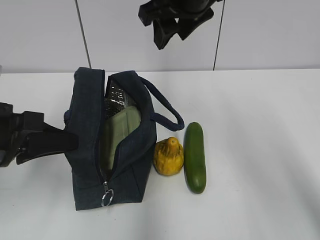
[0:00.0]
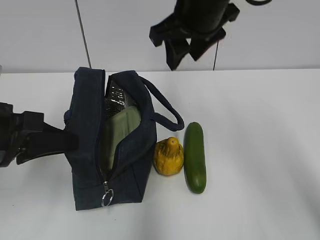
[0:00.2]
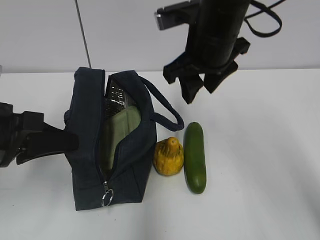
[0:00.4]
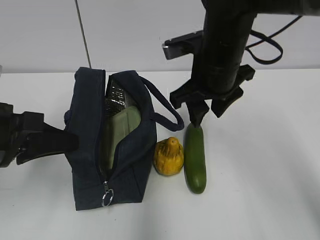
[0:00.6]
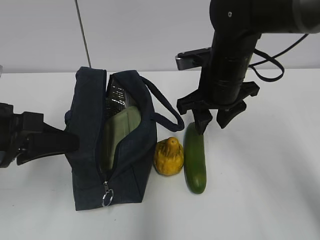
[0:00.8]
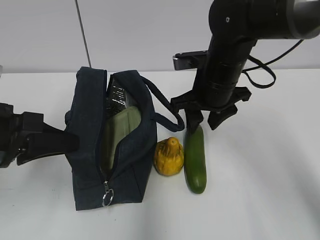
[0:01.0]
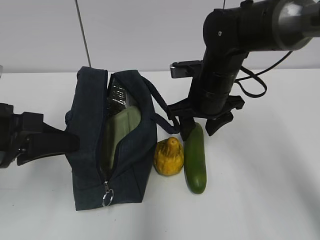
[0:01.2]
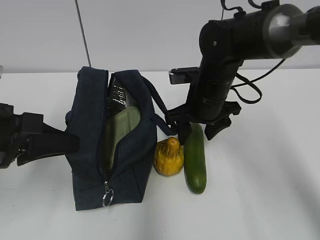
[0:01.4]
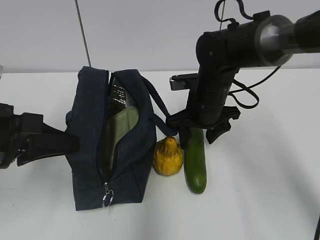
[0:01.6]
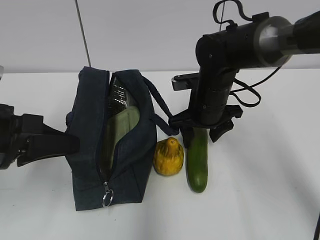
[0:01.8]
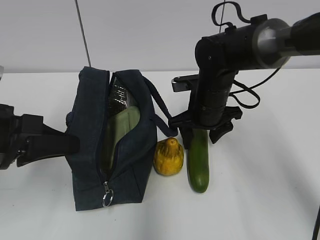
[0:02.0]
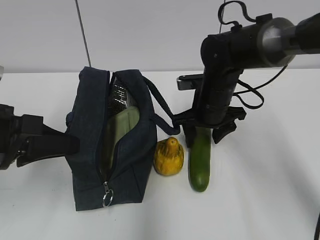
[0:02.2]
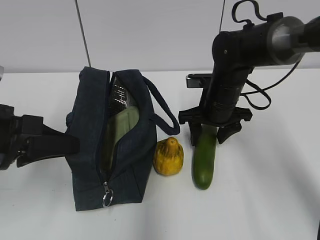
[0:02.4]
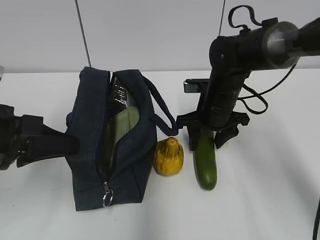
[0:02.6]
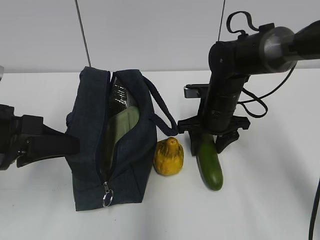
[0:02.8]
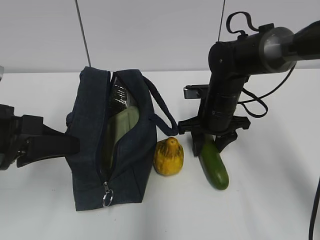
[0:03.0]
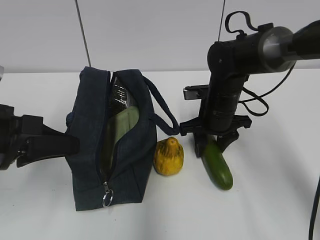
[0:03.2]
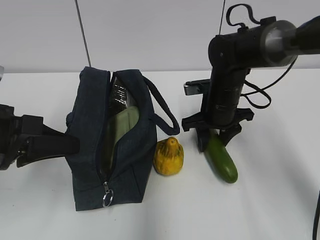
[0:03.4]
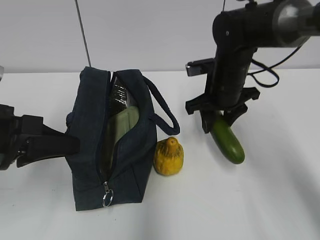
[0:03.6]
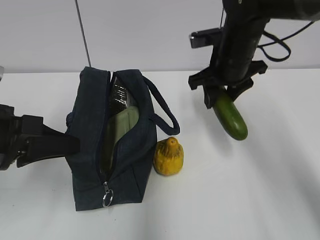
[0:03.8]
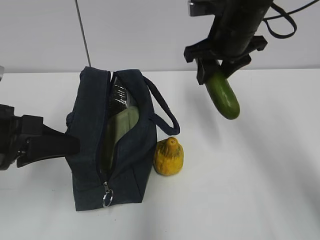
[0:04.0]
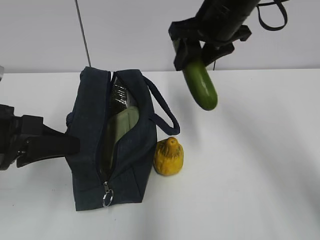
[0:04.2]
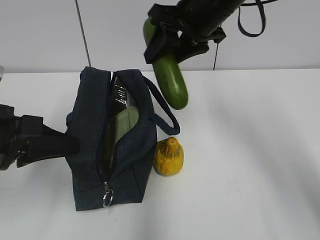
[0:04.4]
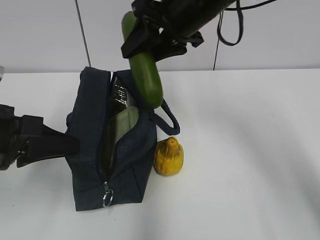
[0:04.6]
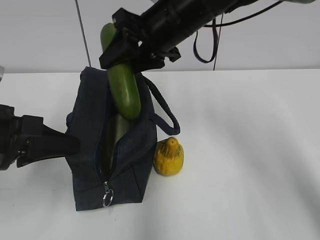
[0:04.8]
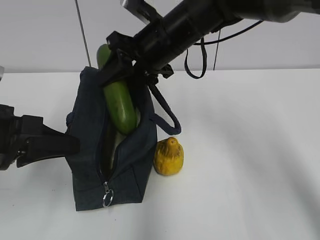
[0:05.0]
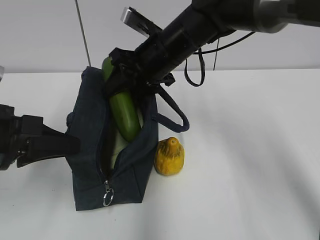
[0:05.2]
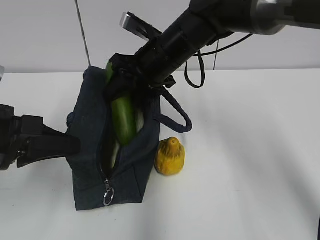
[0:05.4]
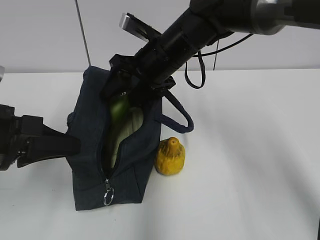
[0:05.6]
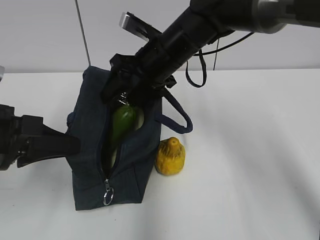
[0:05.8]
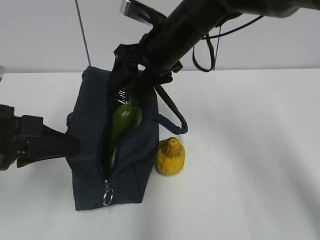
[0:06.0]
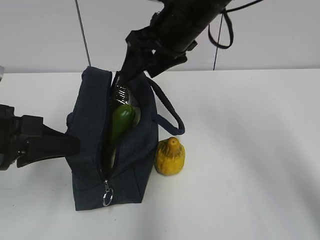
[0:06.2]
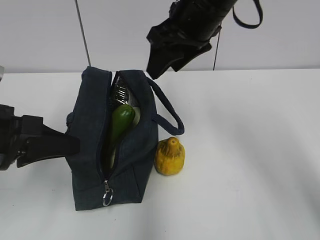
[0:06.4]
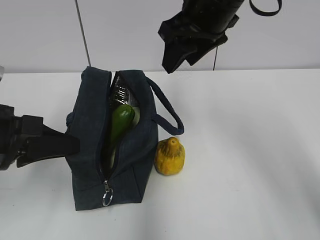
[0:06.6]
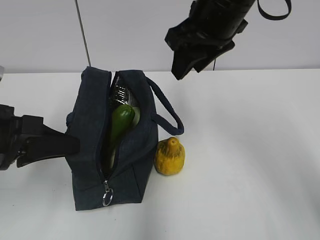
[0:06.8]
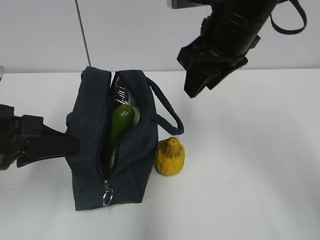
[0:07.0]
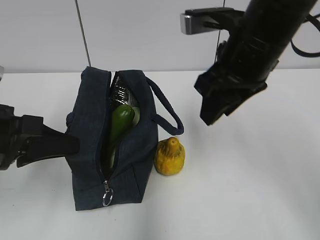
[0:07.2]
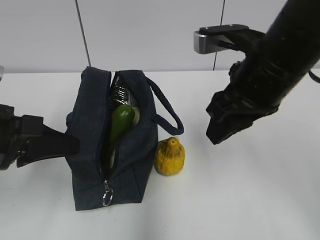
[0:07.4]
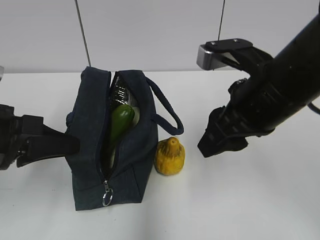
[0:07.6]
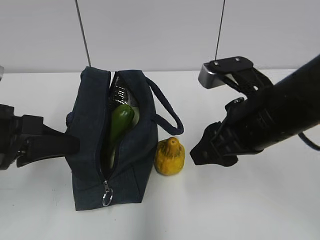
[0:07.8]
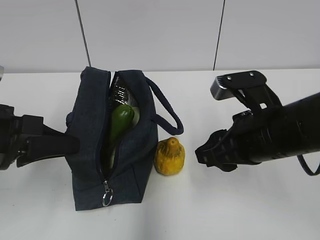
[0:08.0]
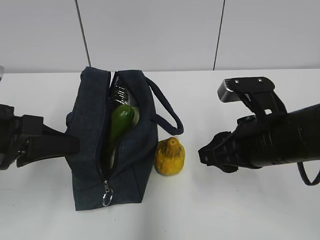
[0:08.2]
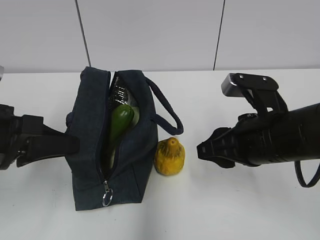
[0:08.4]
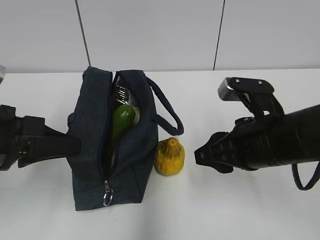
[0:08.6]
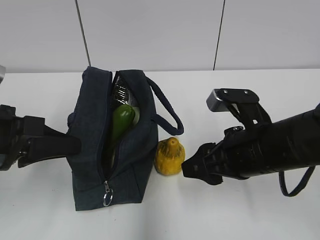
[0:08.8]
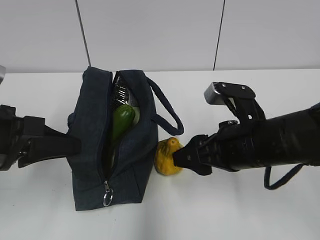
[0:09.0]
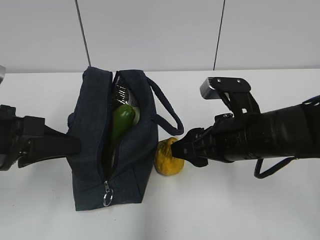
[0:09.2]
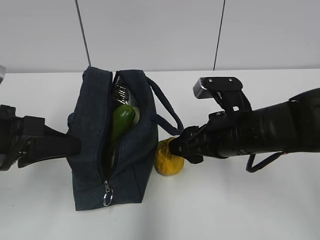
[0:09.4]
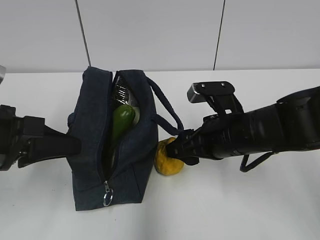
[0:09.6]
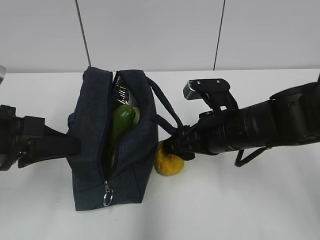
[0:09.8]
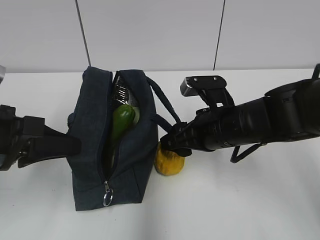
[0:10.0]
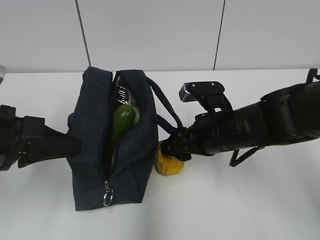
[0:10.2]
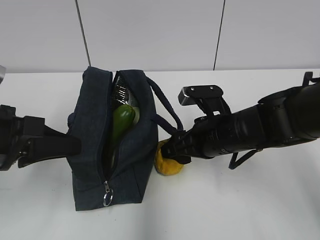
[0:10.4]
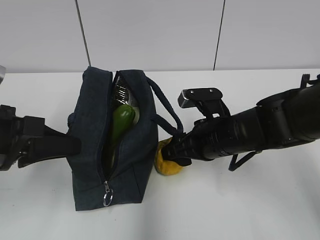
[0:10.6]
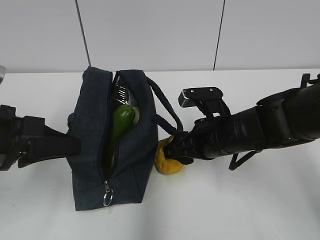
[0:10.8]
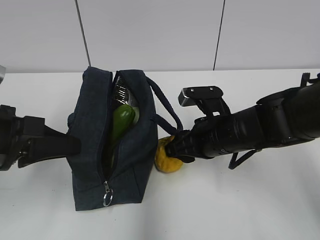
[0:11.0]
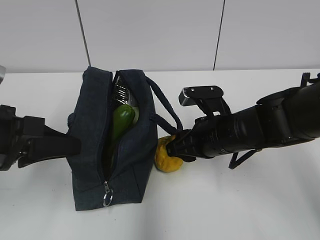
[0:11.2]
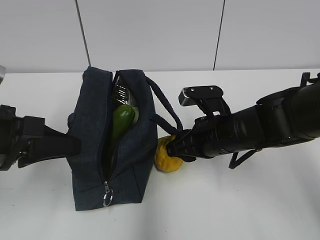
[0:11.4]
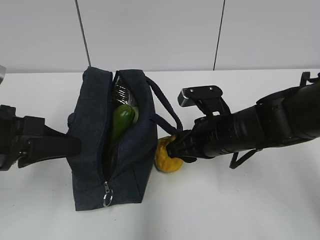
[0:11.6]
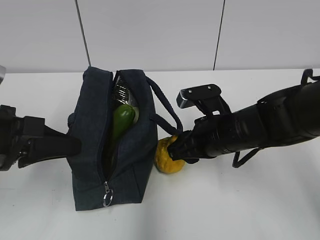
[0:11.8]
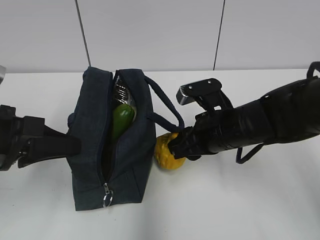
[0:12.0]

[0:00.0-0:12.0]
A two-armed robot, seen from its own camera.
Step, 0:00.0 to 0:03.2: Grab the cucumber with your right hand.
Step, 0:03.4 to 0:05.8: Place it into the bag with your right hand.
0:00.0 to 0:01.6: The right gripper is displaced downward by approximately 20 cm.
0:01.6 to 0:03.0: There are only small adjustments of the grippers.
0:03.0 to 0:04.4: The right gripper shifts about 20 cm upward.
0:04.4 to 0:06.0: The right gripper travels downward and to the left by approximately 10 cm.
0:06.0 to 0:07.6: The right gripper travels backward and to the right by some 15 cm.
0:07.6 to 0:09.0: The right gripper is displaced downward by about 10 cm.
0:09.0 to 0:10.4: The right gripper goes roughly 5 cm forward.
0:10.4 to 0:12.0: The right gripper closes its fingers.

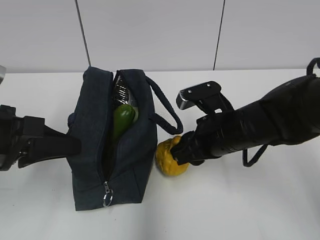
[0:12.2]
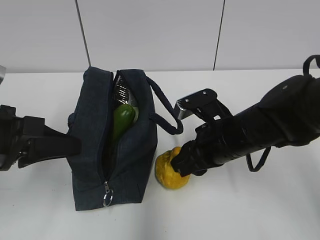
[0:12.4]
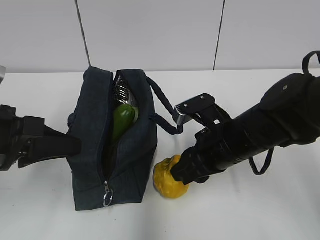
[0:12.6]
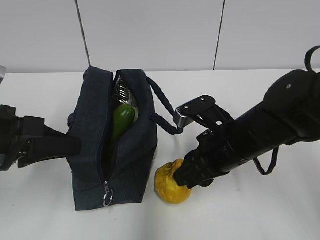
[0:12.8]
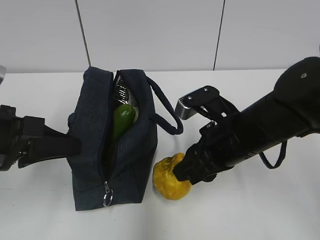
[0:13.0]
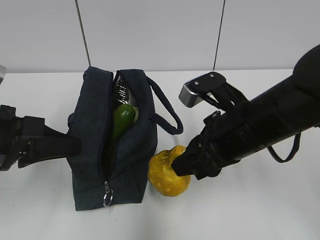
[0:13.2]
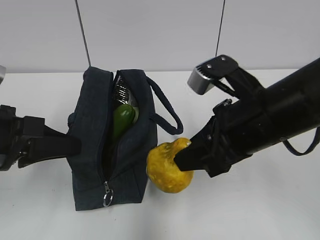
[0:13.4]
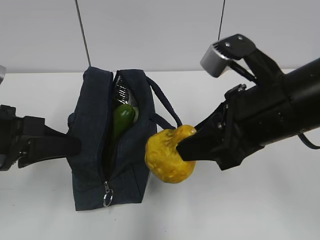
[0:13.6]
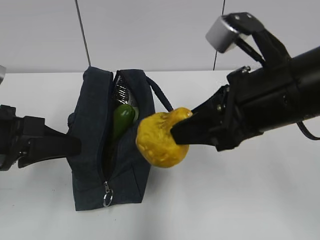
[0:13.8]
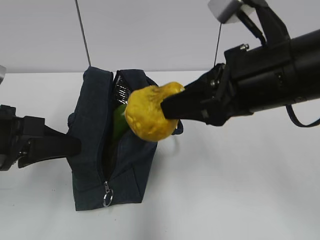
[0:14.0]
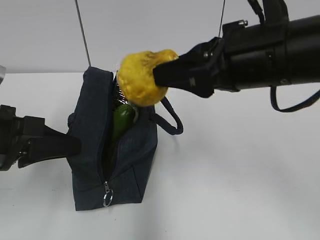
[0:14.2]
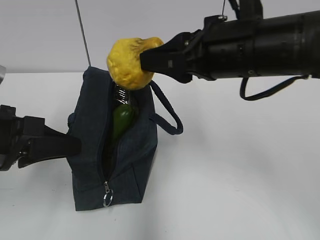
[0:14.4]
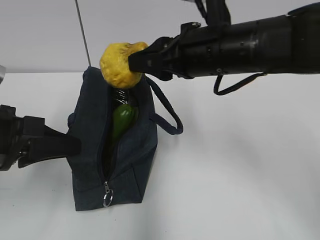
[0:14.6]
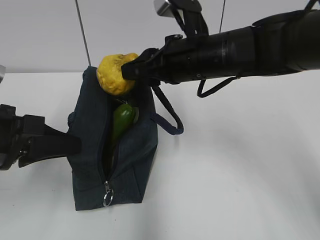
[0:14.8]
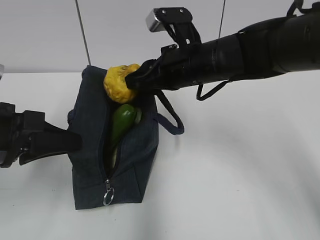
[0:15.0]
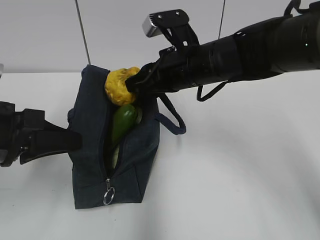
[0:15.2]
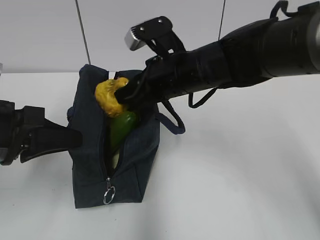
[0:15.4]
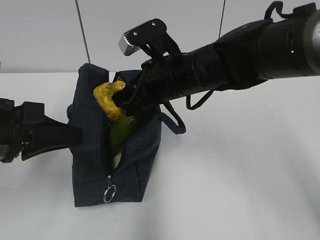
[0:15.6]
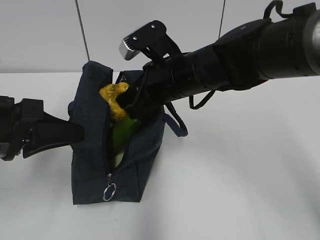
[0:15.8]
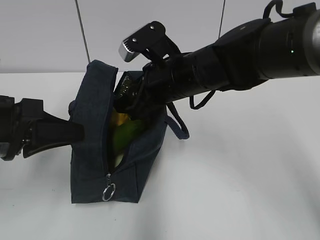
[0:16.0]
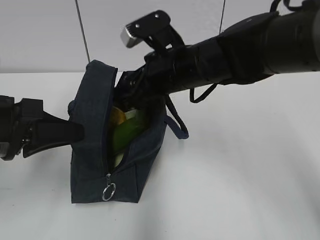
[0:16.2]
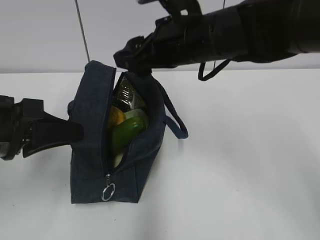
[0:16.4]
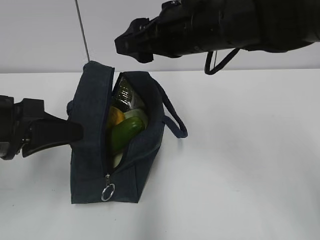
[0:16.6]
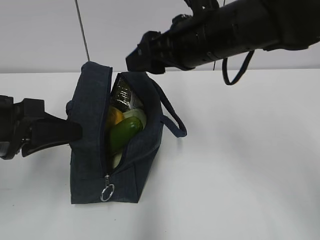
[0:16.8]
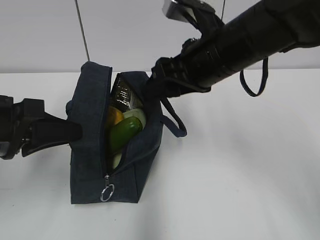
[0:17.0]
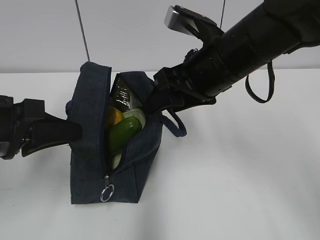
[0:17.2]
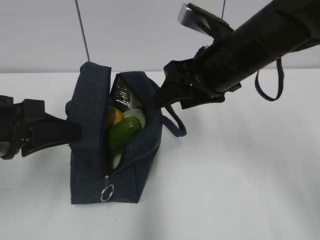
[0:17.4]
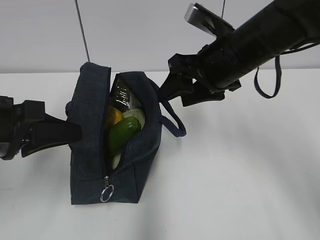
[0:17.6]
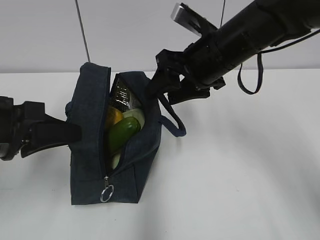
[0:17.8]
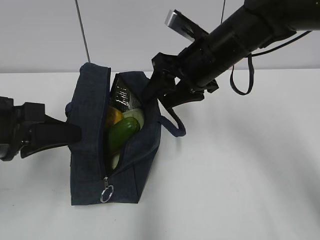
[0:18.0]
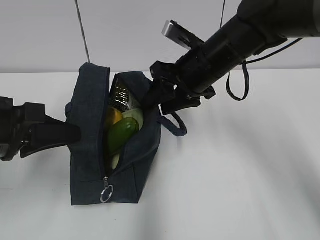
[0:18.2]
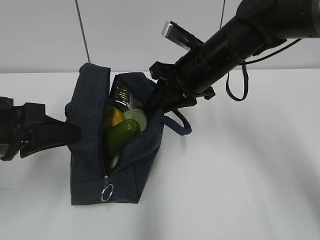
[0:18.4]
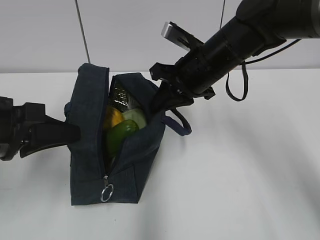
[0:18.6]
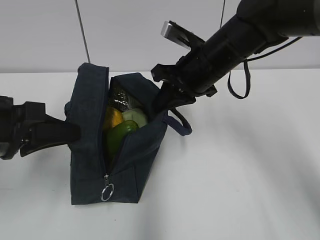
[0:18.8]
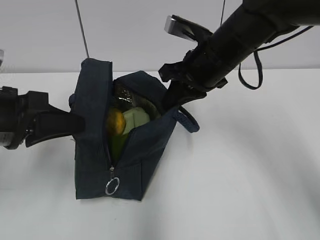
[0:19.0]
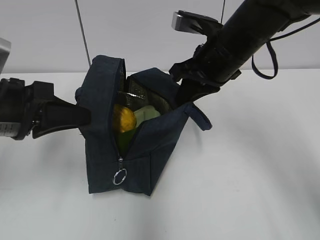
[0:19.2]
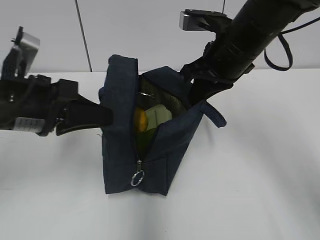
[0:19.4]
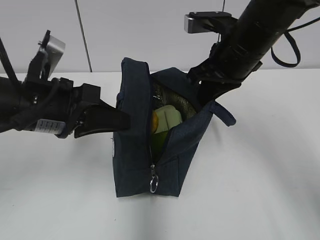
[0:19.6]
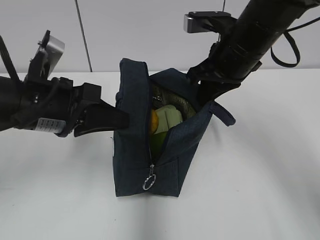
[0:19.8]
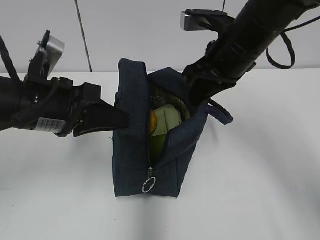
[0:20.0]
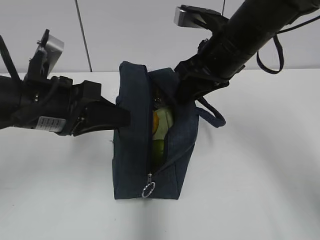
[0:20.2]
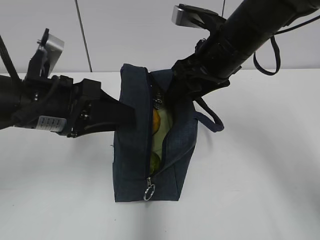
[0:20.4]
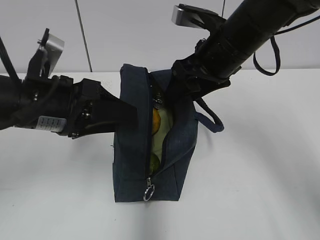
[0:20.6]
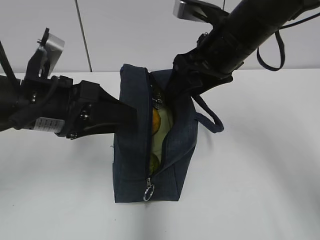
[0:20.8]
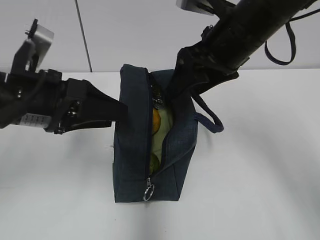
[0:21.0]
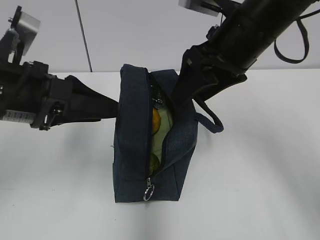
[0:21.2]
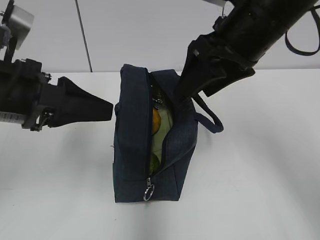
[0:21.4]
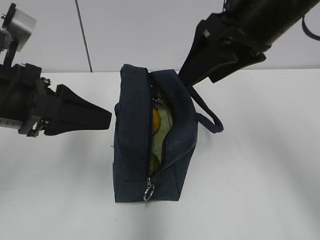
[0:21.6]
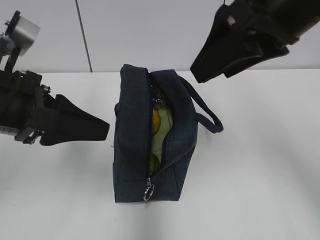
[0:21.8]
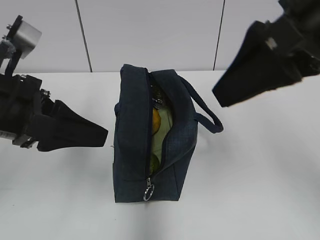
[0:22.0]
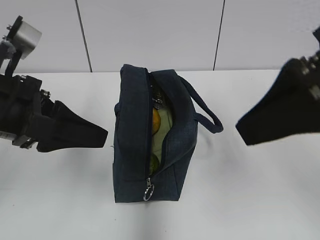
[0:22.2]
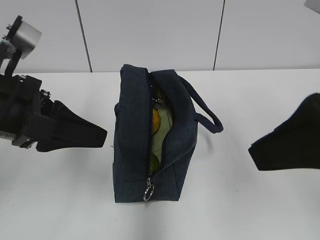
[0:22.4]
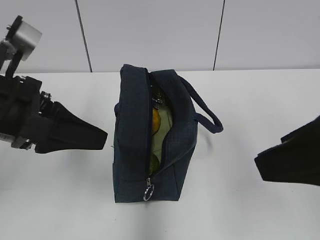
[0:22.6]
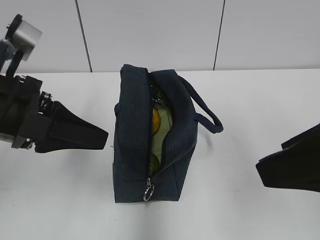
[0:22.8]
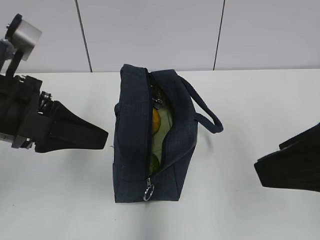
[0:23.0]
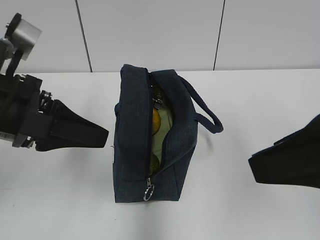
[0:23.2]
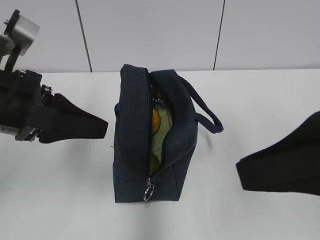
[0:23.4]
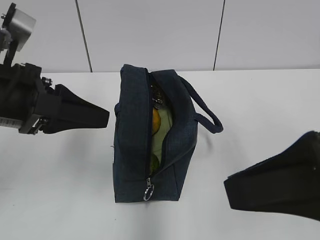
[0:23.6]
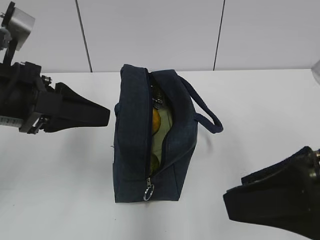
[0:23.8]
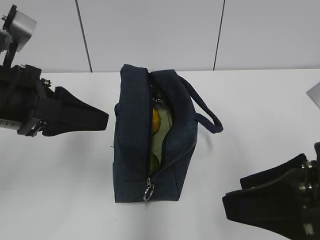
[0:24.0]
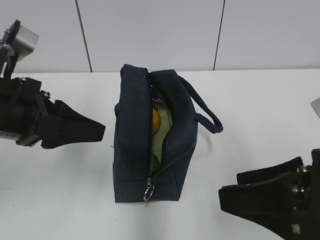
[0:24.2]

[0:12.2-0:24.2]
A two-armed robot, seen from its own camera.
Step, 0:16.2 to 0:18.8: Grab the lunch bag with your right hand.
Step, 0:19.0 to 0:21.0: Move the lunch bag to the right.
0:12.2 to 0:13.8: The right gripper travels upward and backward by about 15 cm.
0:13.8 to 0:15.2: The right gripper is displaced forward by some 15 cm.
0:15.2 to 0:16.6: The right gripper heads upward, covering approximately 5 cm, and opens its fingers.
0:16.6 to 0:18.2: The right gripper is displaced downward by roughly 5 cm.
0:18.2 to 0:19.8: The left gripper goes about 5 cm to the right, while the right gripper moves approximately 5 cm, and closes up.
0:19.8 to 0:21.2: The right gripper opens its fingers, while the left gripper opens its fingers.
0:21.2 to 0:22.6: The right gripper heads backward, covering some 20 cm.
0:22.6 to 0:24.2: The right gripper goes roughly 10 cm downward.
